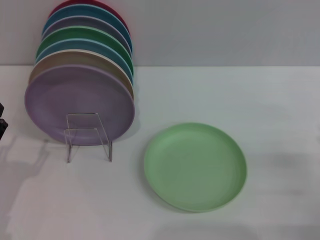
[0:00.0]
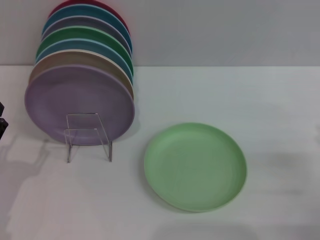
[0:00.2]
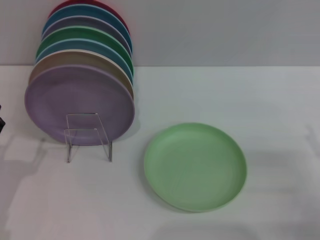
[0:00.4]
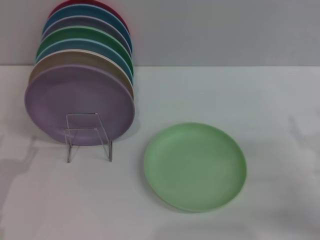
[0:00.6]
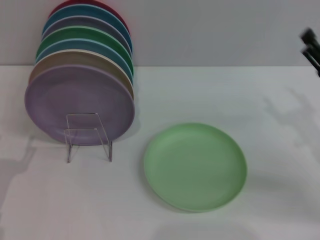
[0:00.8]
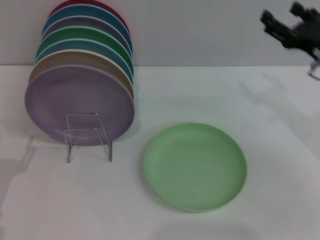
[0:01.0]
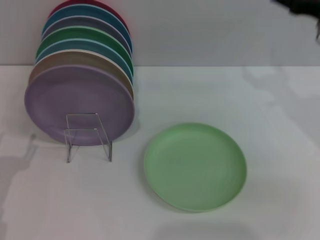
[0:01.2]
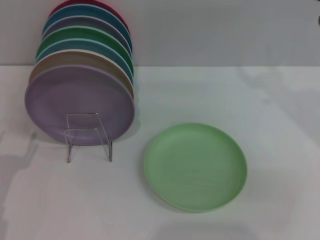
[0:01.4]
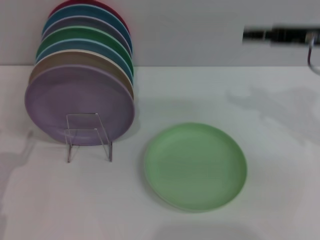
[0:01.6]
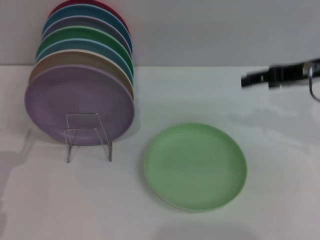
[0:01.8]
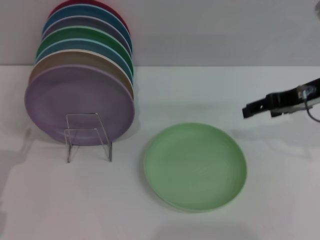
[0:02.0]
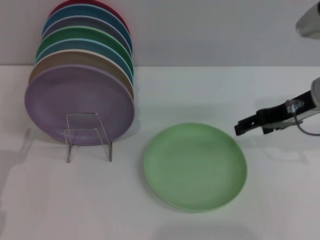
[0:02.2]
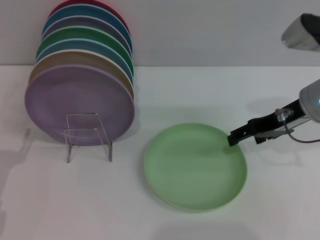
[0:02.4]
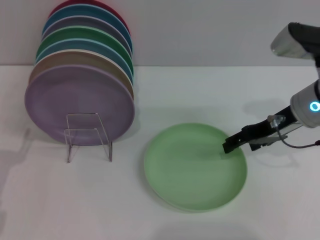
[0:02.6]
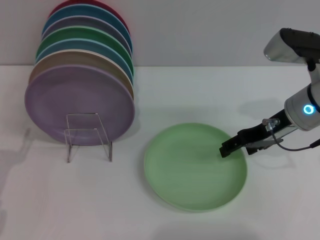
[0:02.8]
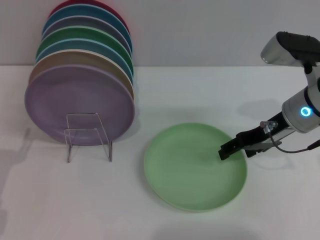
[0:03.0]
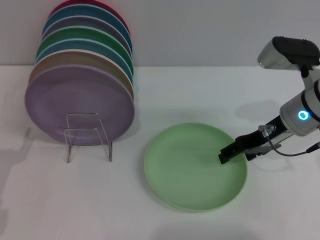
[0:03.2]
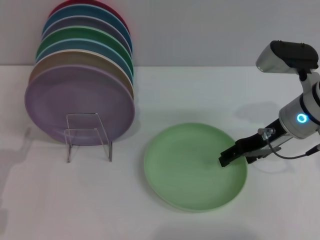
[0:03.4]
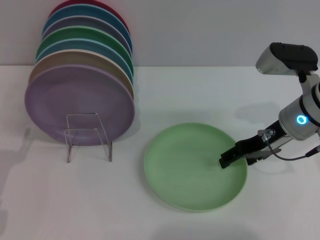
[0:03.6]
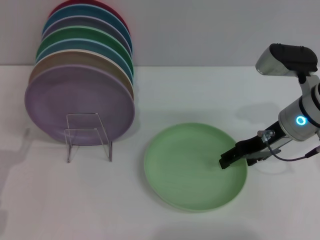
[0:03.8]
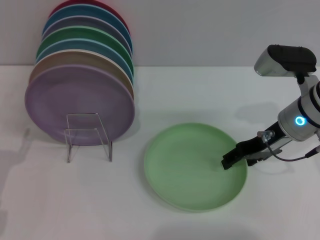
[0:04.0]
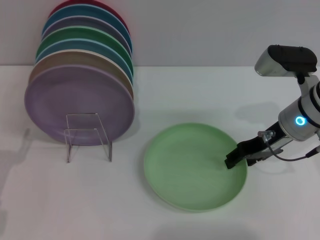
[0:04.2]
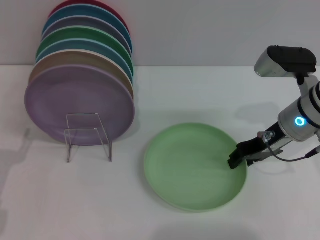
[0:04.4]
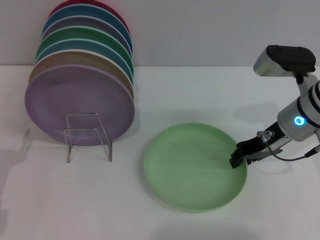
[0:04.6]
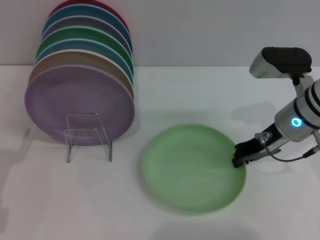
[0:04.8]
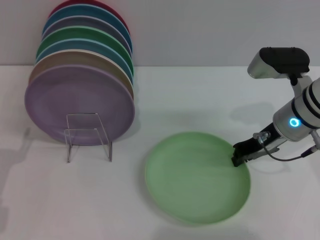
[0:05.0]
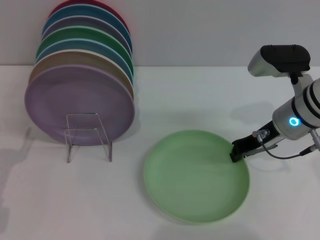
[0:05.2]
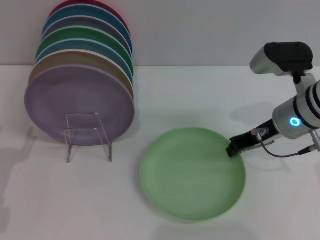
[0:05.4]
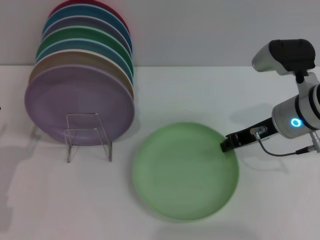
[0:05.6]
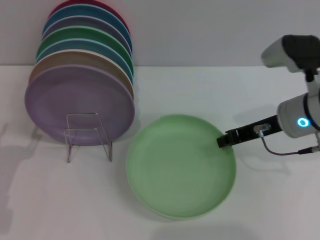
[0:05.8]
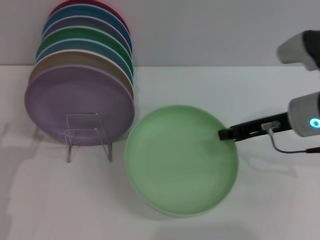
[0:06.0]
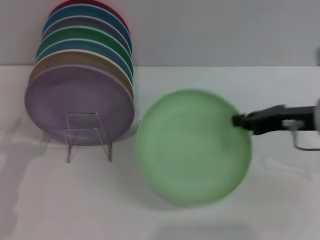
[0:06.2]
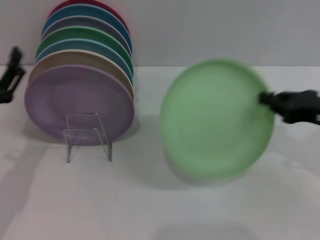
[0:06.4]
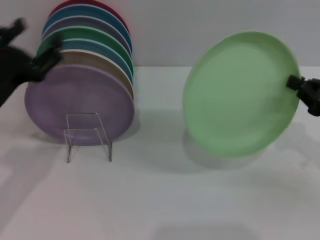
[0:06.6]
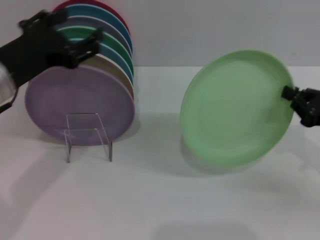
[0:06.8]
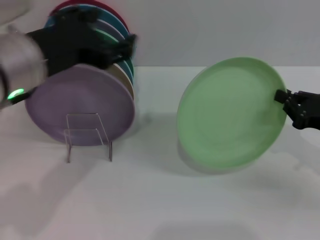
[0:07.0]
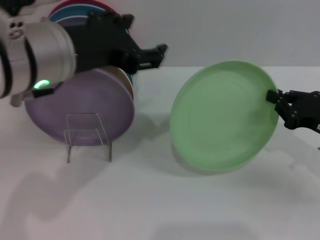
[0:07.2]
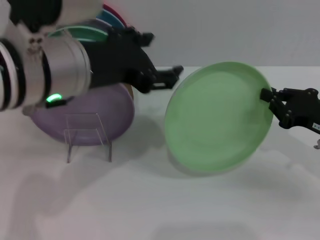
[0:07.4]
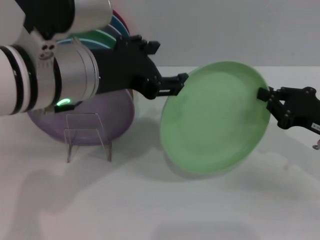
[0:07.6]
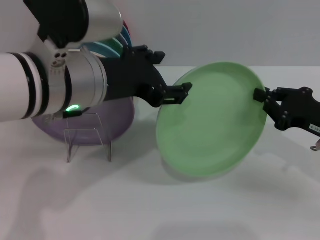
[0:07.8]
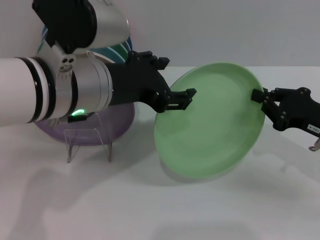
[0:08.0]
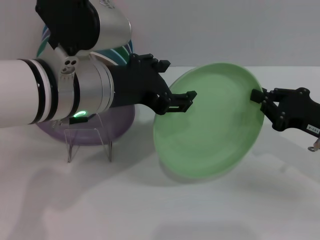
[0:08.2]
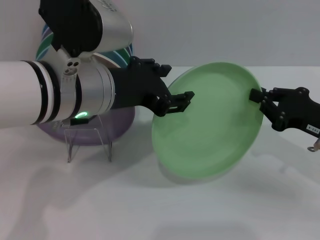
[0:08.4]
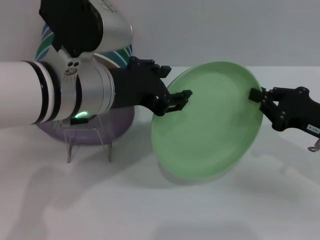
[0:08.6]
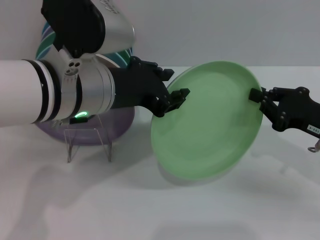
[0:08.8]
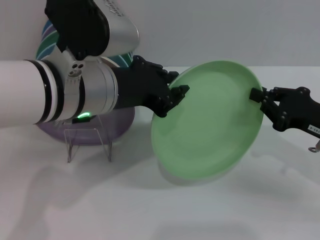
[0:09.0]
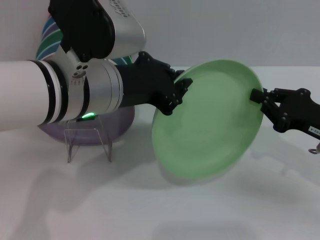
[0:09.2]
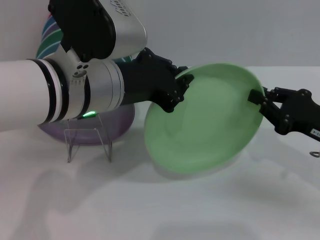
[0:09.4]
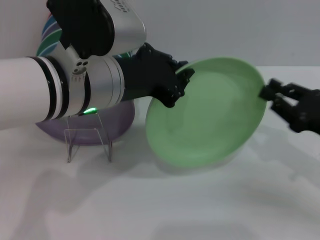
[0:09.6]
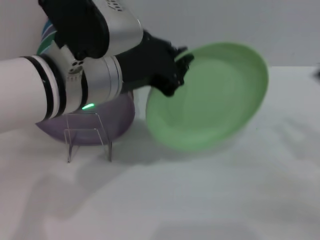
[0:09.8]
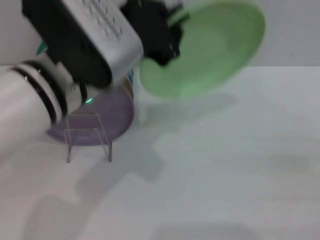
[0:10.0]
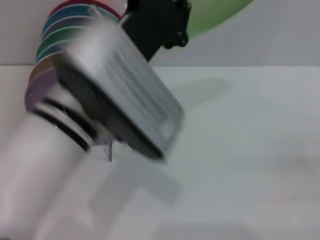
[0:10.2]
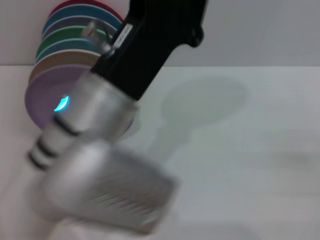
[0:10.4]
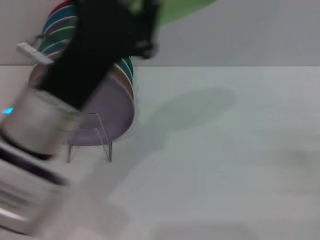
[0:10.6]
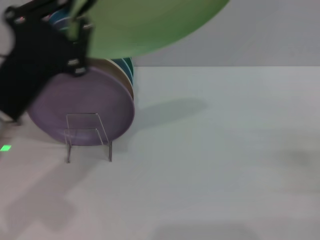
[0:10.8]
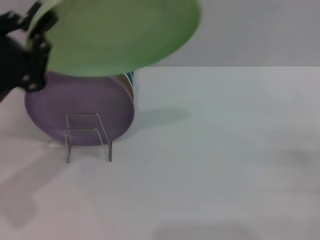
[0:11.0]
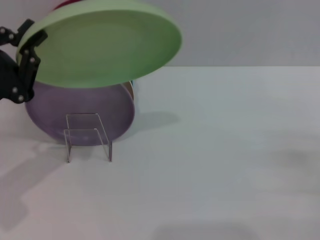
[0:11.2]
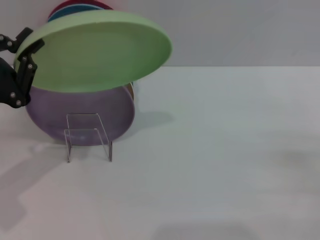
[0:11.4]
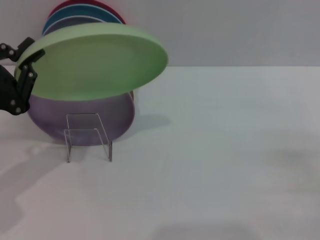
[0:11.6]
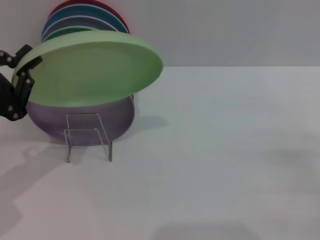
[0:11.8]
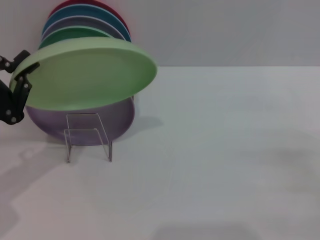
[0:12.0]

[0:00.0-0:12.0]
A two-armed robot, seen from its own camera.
Task of the whole recording: Grip the plate with one hand, pass it to the other, then set it on the shelf.
Step, 0:00.0 to 0:06.0: Pick up the plate with the right gripper.
Step, 0:06.2 to 0:09.8: Pass the plate from the right gripper to the left gripper.
0:00.0 to 0:01.6: The right gripper goes some 25 cm upward, forward and to the left.
0:01.6 to 0:03.0: The right gripper is displaced downward by about 10 cm.
0:03.0 to 0:04.4: There are only small adjustments of the grippers.
0:04.4 to 0:06.0: The right gripper closes up.
0:06.0 to 0:07.6: The right gripper goes roughly 10 cm to the right and downward. The left gripper goes approximately 25 cm upward and to the right.
0:07.6 to 0:09.0: The left gripper closes up.
0:09.0 to 0:10.4: The right gripper shifts some 15 cm to the right and backward, and opens. Meanwhile the left gripper goes roughly 5 cm backward, and closes up.
0:10.4 to 0:12.0: The left gripper heads to the left, covering about 25 cm.

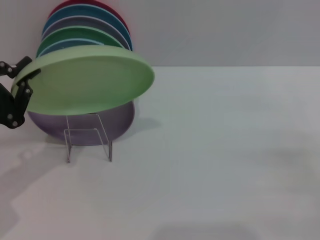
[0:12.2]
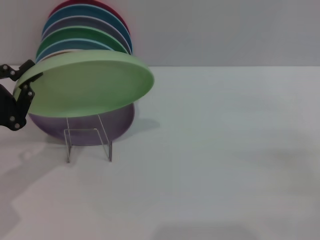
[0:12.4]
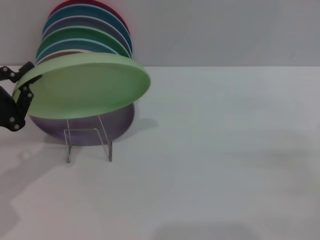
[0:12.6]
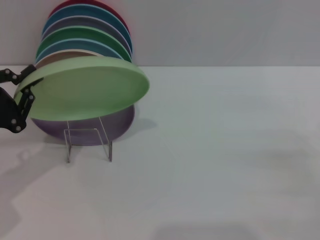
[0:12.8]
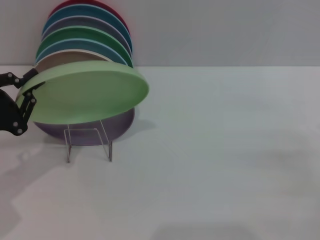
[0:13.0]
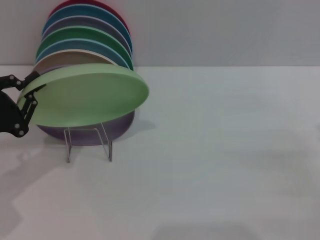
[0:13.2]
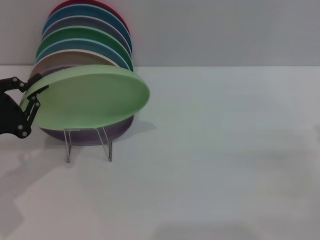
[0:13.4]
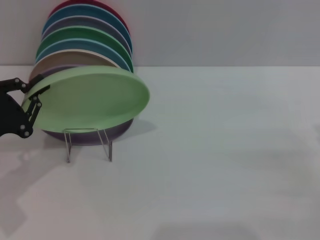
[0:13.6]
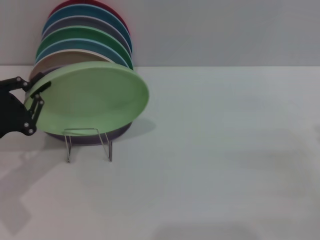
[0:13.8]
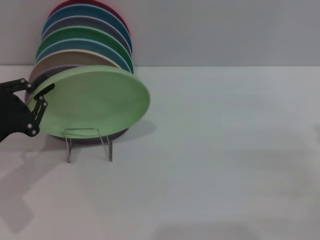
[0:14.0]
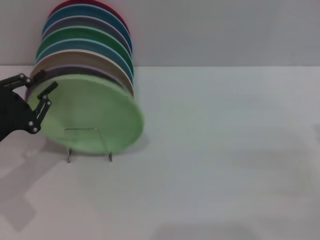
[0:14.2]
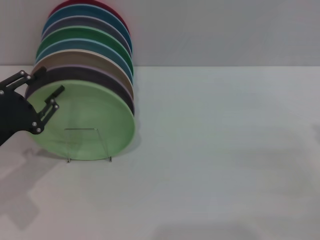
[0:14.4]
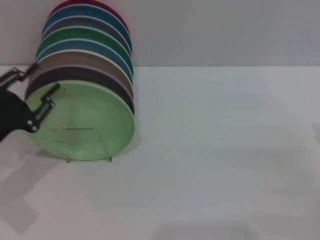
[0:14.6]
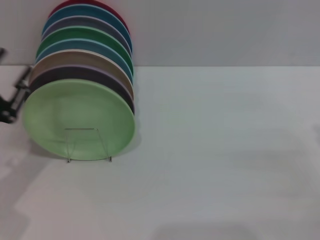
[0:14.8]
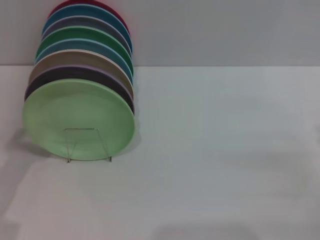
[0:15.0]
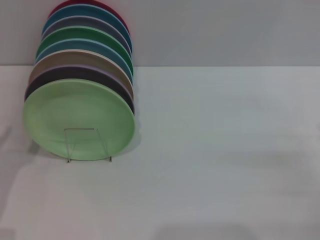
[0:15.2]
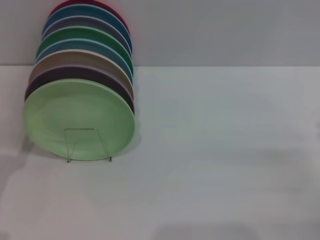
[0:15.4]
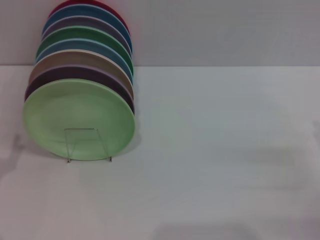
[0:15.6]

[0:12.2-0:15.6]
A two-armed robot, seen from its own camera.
Task of the whole recording: Grip the plate with one hand, pass it to the other, then set it on the shelf.
Step, 0:12.2 to 0:14.2: Place the plate on the shelf with the left gripper.
0:12.2 to 0:13.8: The grippers stay close to where they were, moving slightly.
0:13.8 to 0:15.6: The left gripper heads backward, covering approximately 5 cm, and opens up.

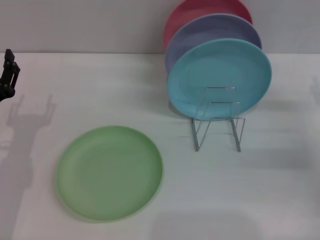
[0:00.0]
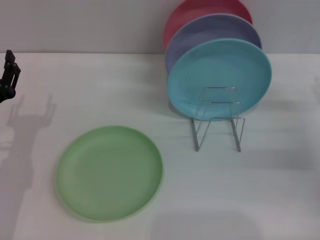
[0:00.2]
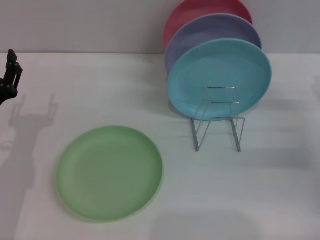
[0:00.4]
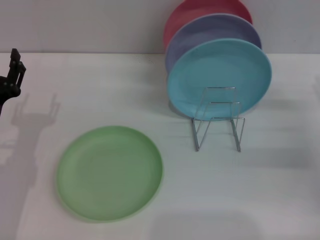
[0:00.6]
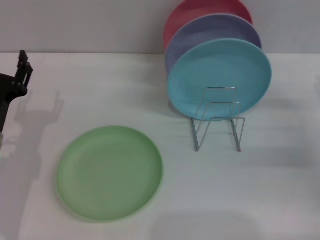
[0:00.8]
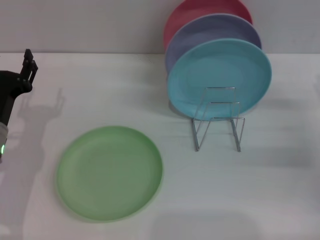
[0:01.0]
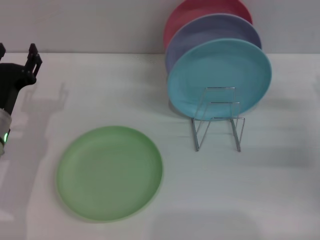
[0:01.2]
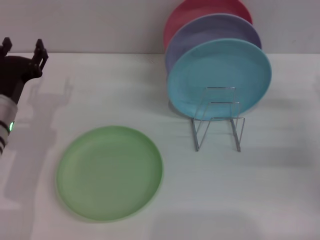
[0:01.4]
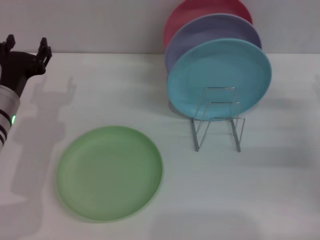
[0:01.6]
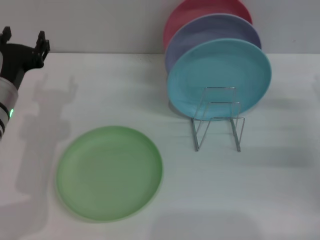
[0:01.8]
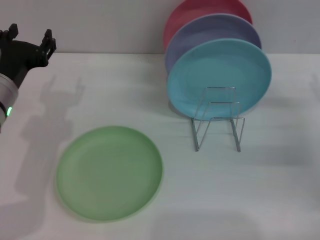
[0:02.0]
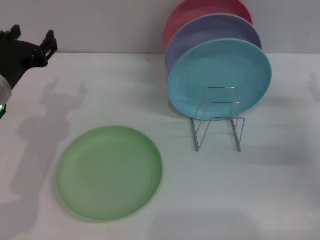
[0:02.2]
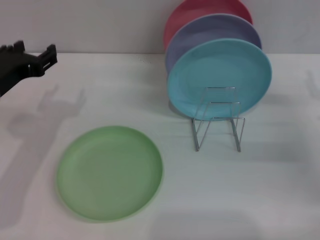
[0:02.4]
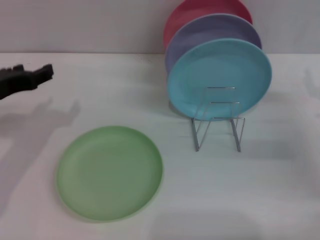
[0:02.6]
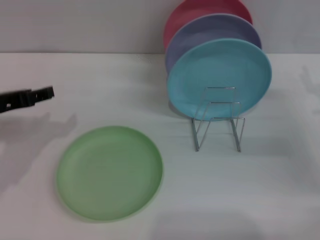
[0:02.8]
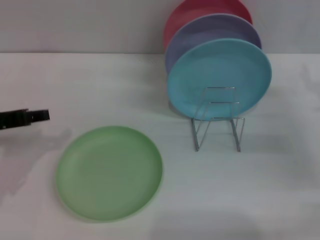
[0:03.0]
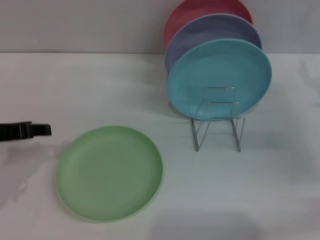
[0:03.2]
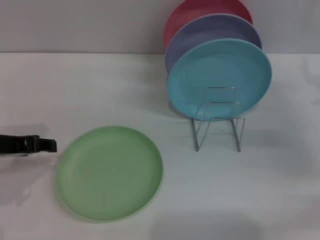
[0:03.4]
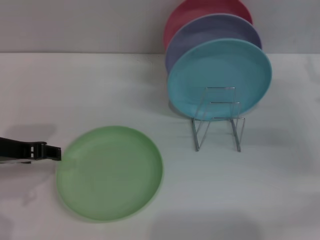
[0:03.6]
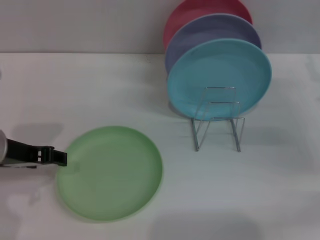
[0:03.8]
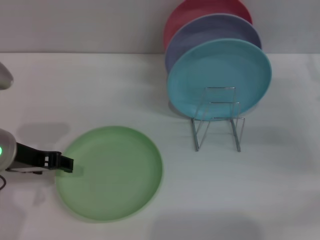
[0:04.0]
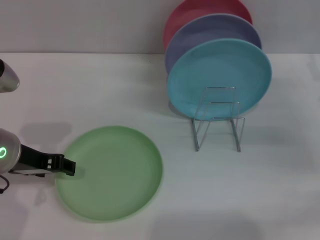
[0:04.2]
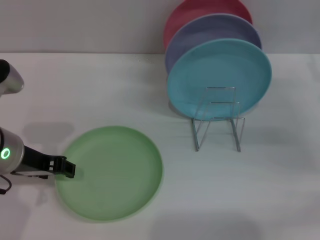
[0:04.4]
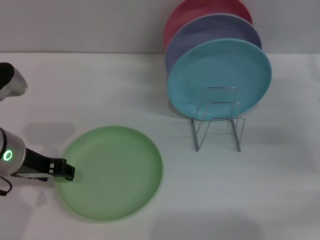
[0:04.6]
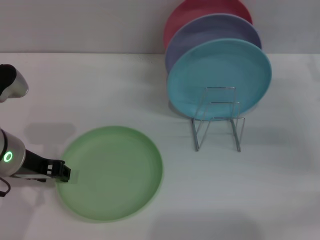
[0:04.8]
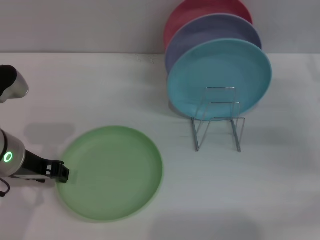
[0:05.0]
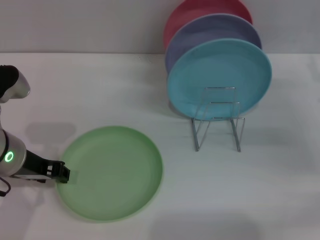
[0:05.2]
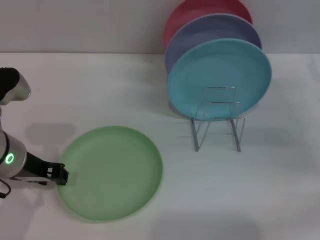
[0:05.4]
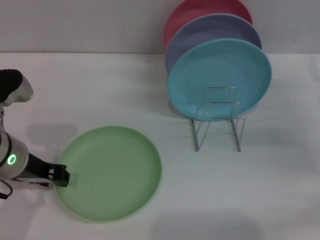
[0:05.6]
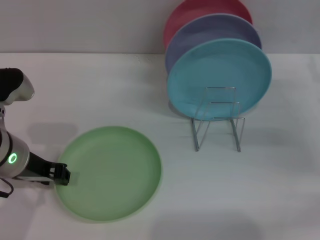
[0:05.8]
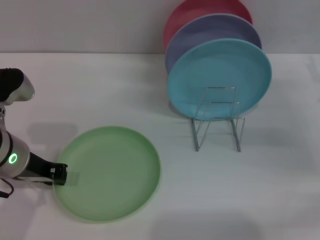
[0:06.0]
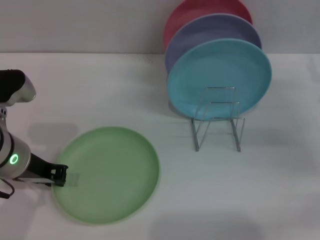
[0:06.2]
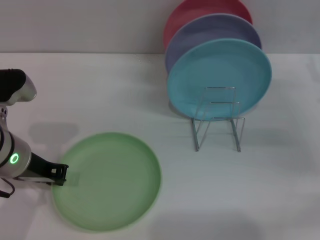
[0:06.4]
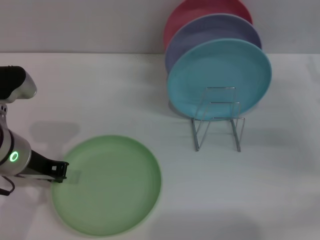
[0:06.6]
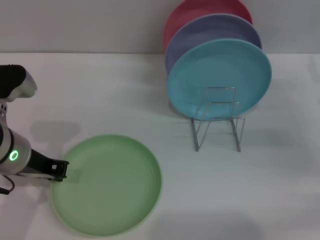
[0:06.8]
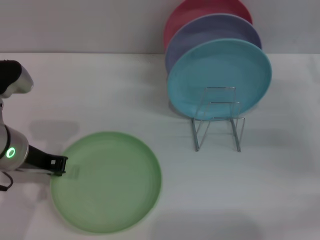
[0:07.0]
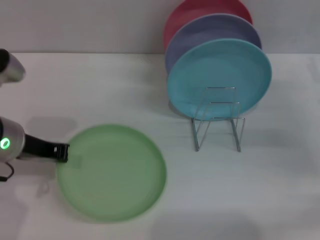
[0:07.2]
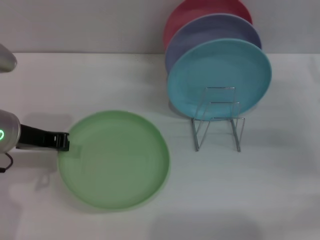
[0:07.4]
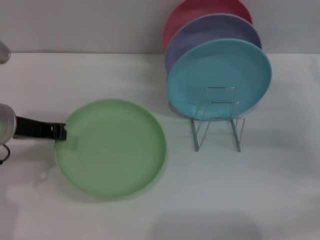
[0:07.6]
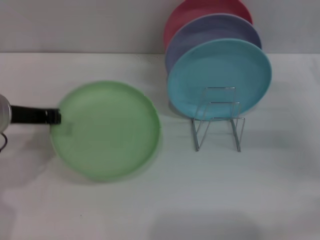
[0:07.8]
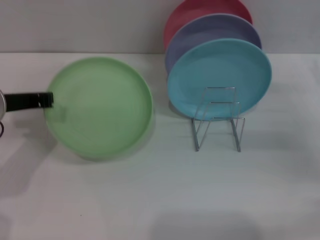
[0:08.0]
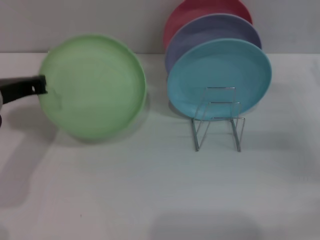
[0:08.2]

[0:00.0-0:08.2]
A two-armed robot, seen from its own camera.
Task of the whole recording: Grip the plate with one hand, pass it to the other, then set it on the shelf.
Step, 0:00.0 to 0:07.8: Pick up the plate with the left gripper.
0:00.0 to 0:01.6: The left gripper shifts about 5 cm forward.
0:01.6 to 0:03.2: The left gripper goes some 10 cm upward and backward.
0:03.2 to 0:05.0: The left gripper travels to the right by some 5 cm.
0:05.0 to 0:06.6: The left gripper closes its fingers.
